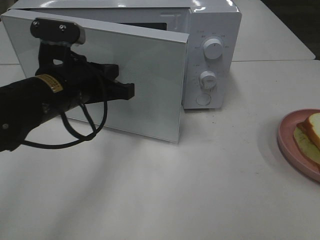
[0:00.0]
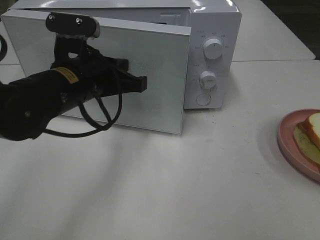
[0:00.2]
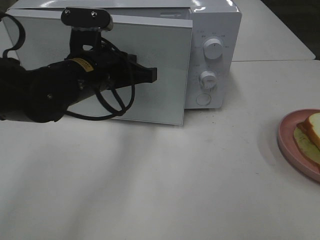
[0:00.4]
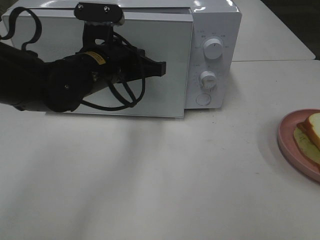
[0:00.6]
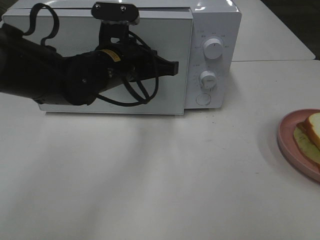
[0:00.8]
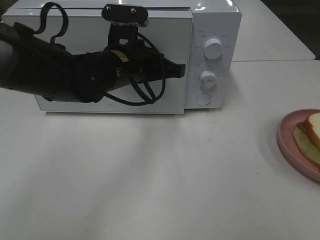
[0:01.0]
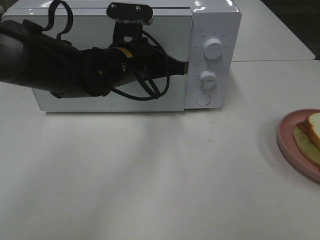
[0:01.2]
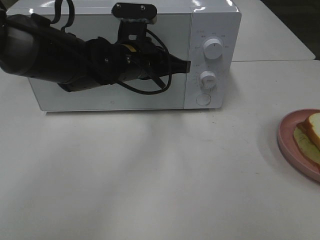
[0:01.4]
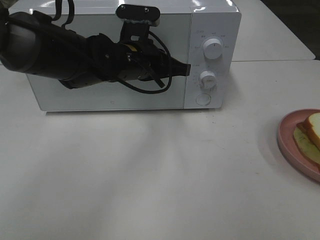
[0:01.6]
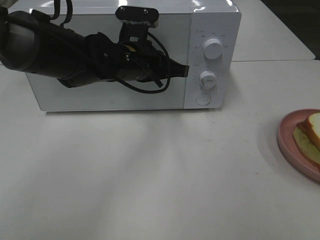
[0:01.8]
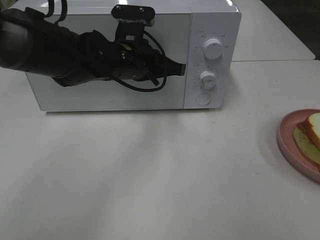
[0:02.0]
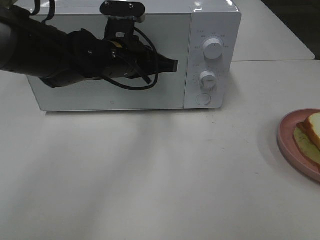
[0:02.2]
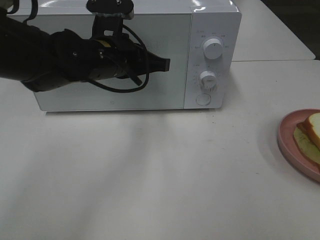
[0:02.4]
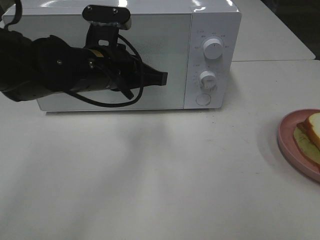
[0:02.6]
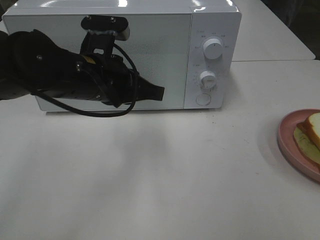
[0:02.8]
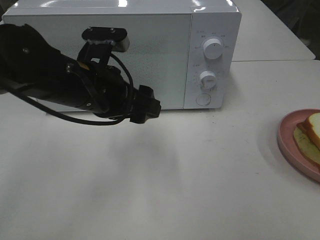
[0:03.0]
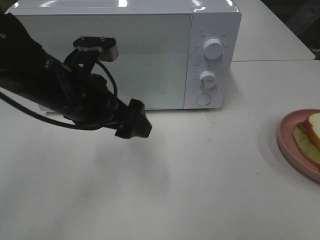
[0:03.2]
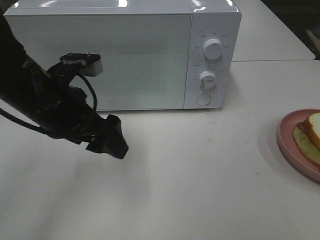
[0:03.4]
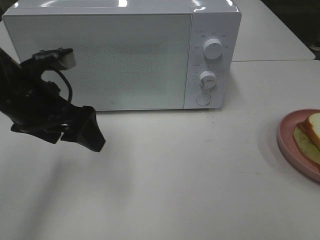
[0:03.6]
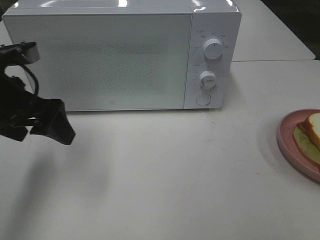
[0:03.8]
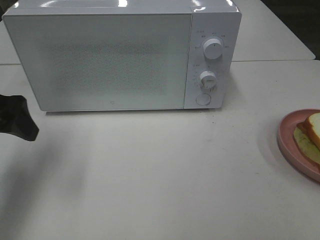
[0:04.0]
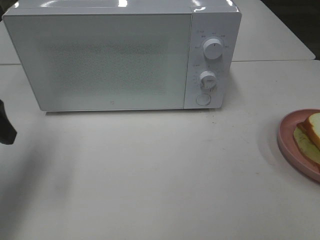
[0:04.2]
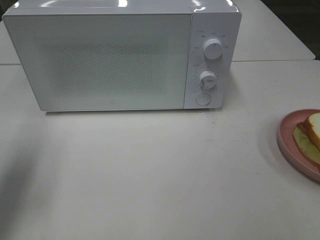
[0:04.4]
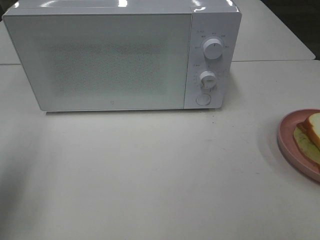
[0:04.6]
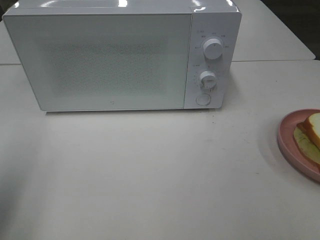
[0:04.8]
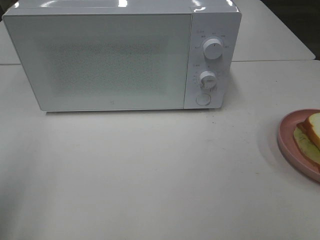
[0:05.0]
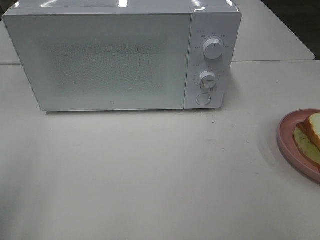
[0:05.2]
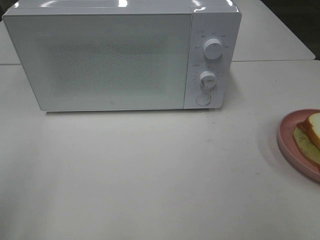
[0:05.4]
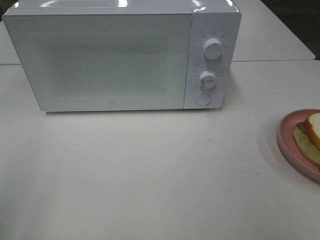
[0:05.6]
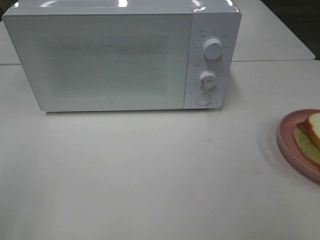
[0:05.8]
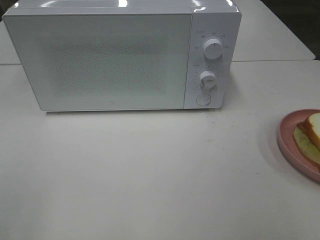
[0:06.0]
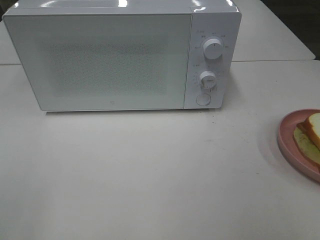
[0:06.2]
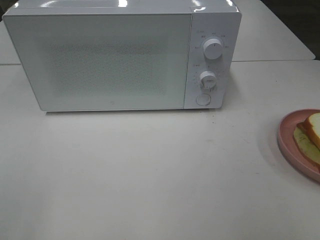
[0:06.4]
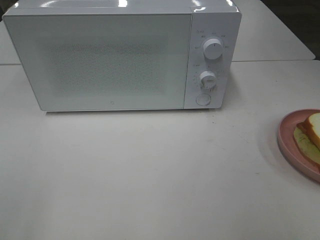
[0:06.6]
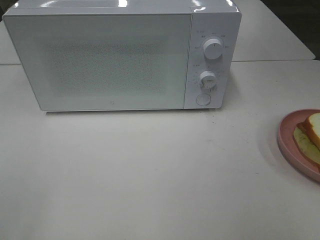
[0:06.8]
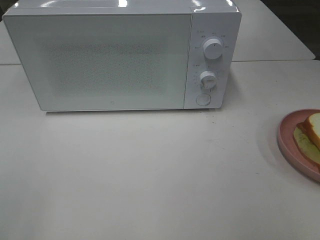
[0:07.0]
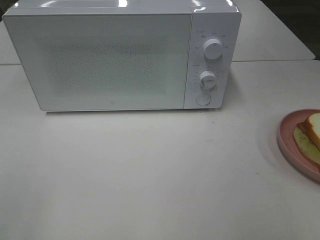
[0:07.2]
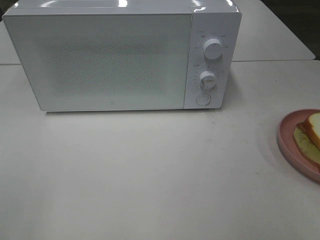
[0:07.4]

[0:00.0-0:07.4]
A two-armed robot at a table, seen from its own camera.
Task of the whole recording: Heat Sandwich.
Step, 0:00.0 to 0:02.2: Left hand: close the microwave door.
0:00.0 to 0:01.4: The left gripper moves forward and to the right, approximately 10 cm.
0:01.4 to 0:03.0: The left gripper shifts some 10 cm backward and to the left, and opens up.
0:03.0 to 0:04.4: The left gripper moves to the left, approximately 20 cm.
0:04.4 to 0:06.0: The left gripper goes roughly 20 cm backward.
0:06.0 to 0:07.4: Both grippers stay put.
